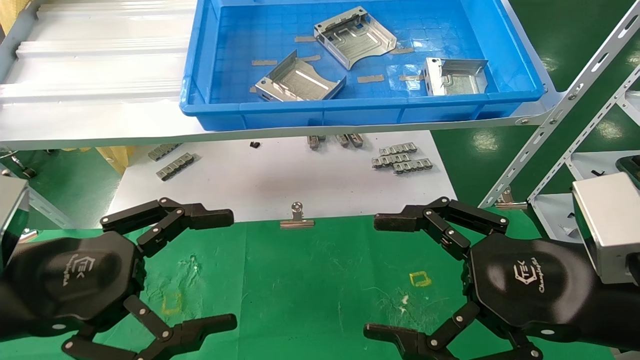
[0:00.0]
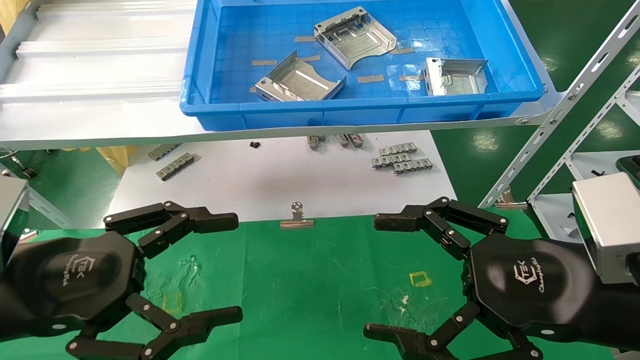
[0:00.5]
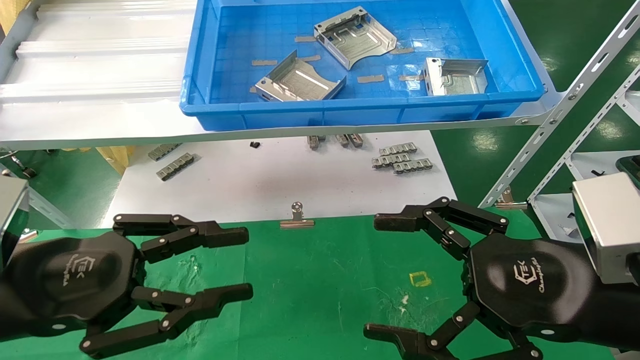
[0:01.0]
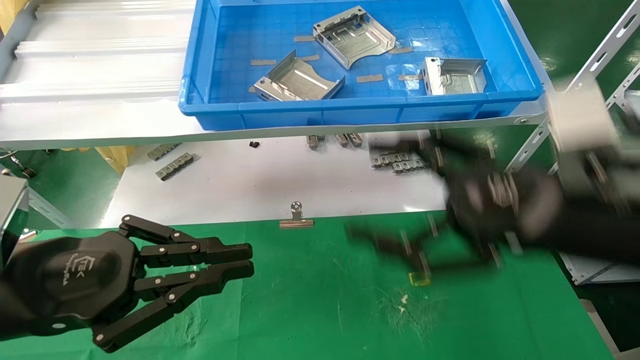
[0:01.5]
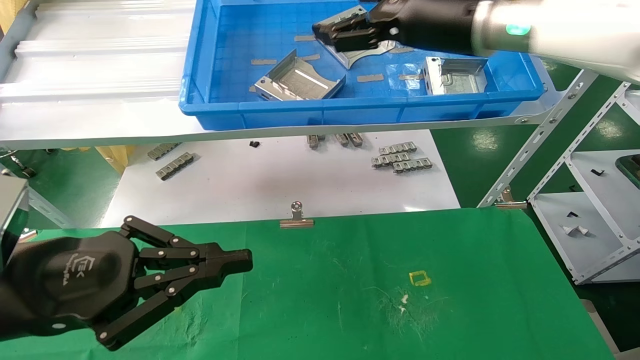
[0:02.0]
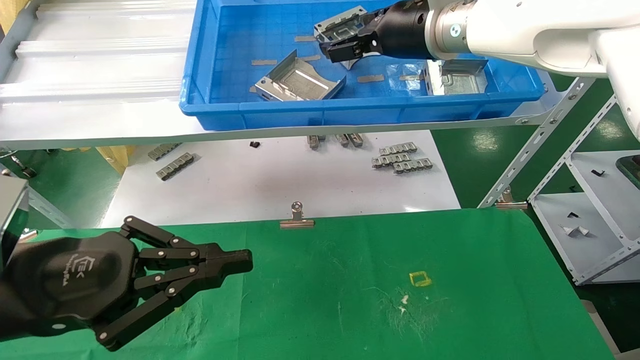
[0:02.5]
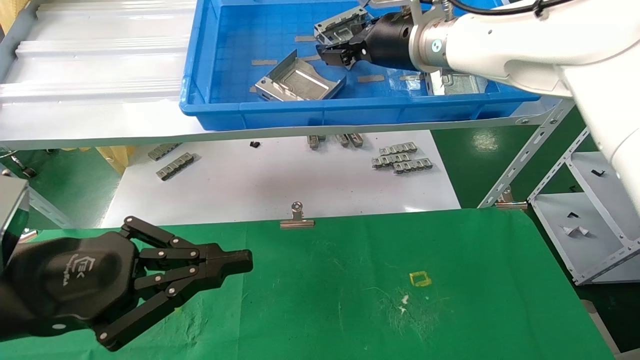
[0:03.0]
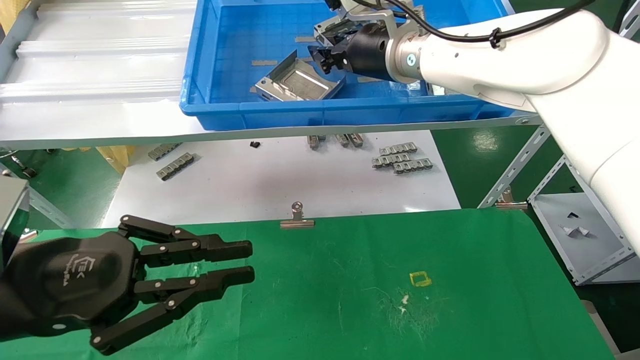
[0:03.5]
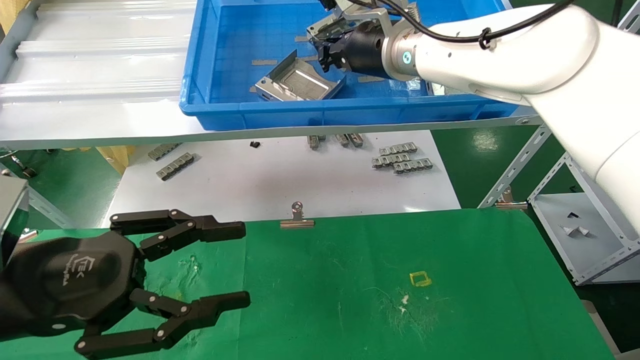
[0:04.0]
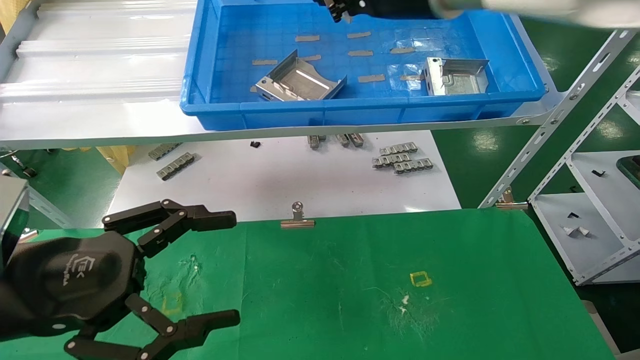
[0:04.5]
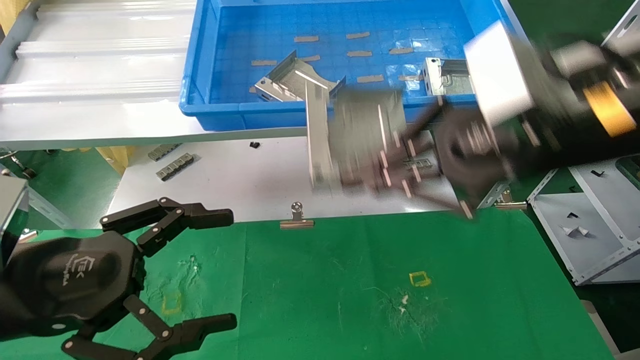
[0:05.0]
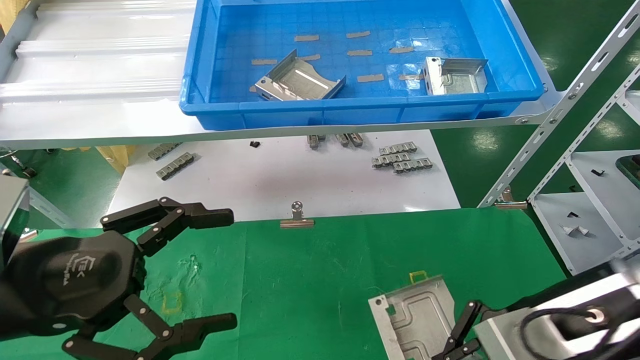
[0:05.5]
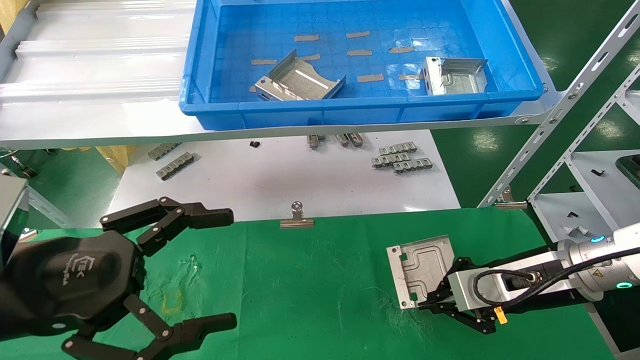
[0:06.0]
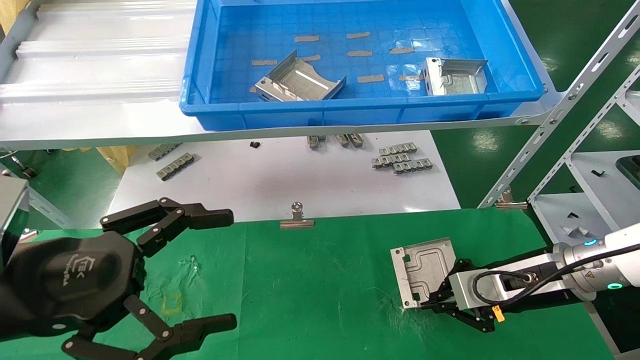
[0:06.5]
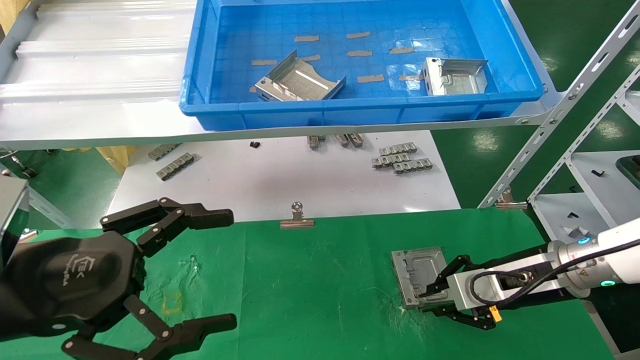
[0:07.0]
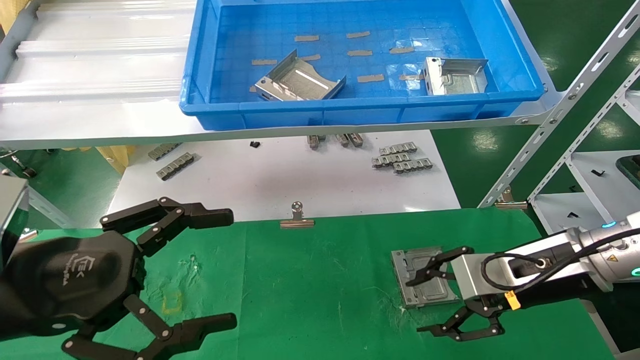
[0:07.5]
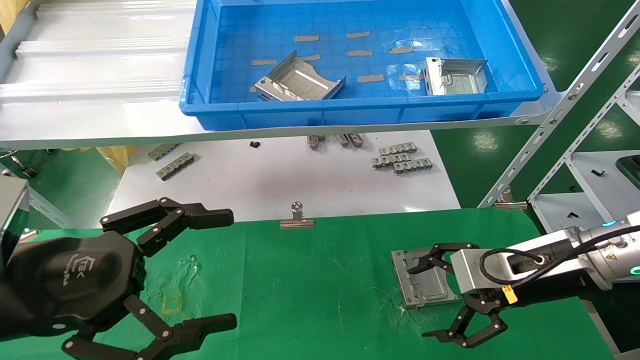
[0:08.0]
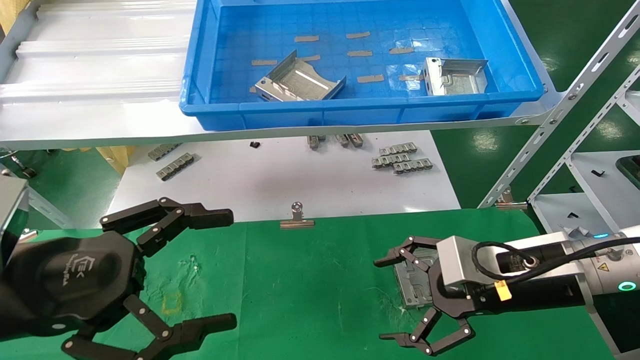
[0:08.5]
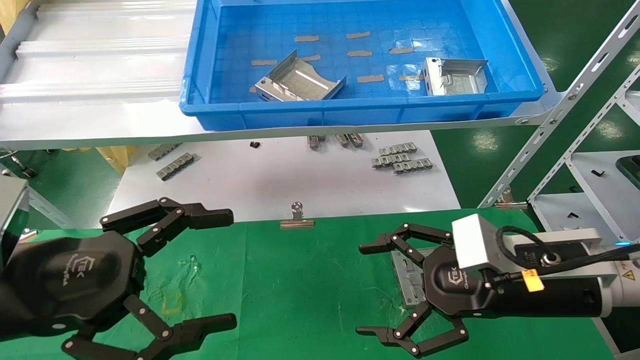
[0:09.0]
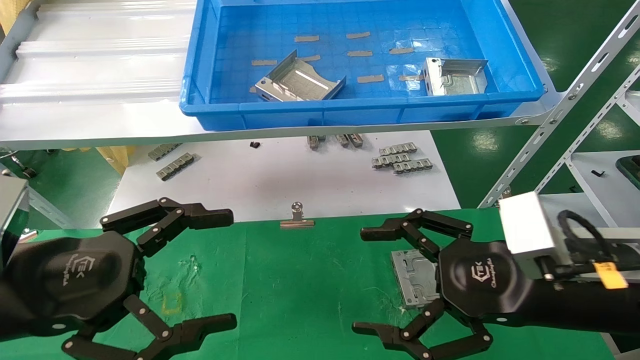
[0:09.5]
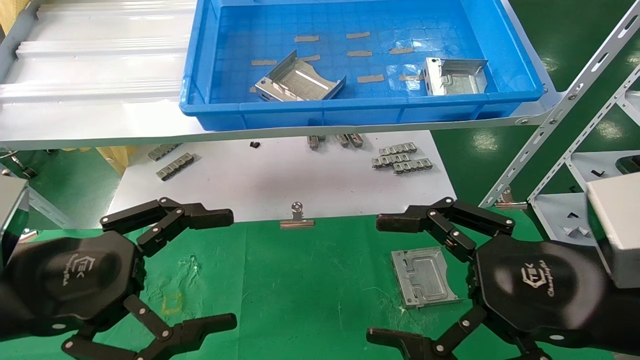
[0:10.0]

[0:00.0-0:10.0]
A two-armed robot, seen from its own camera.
Task of the whole recording: use the mechanical arm to pick up the parts and place them on the table.
Step, 0:01.5 to 0:04.5: Pick up the hard drive bracket from the feeding area.
Step, 0:05.0 to 0:07.0: Place the hard drive bracket into the box.
0:00.0 to 0:02.0: The left gripper closes its fingers, while the right gripper is displaced forward, upward and to the left by about 30 cm.
0:02.0 to 0:04.0: The left gripper opens, while the right gripper moves to the left and forward, some 10 cm, and closes its fingers.
0:04.0 to 0:06.0: The right gripper heads downward, to the right and backward, covering roughly 35 cm, while the left gripper opens.
0:06.0 to 0:08.0: The right gripper opens its fingers.
0:08.0 to 0:10.0: The right gripper is displaced backward by about 15 cm.
